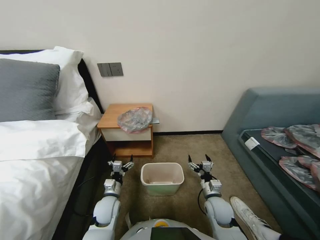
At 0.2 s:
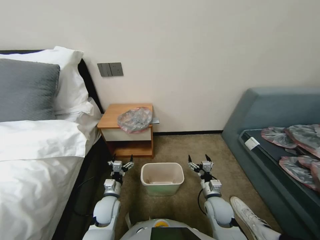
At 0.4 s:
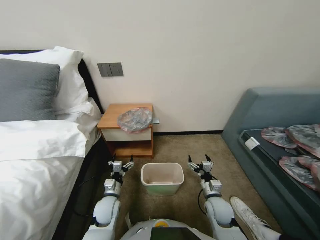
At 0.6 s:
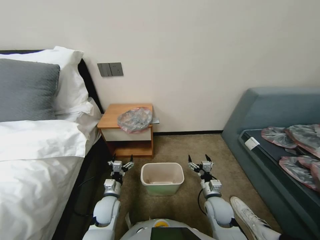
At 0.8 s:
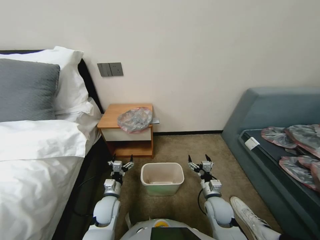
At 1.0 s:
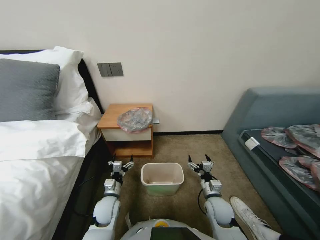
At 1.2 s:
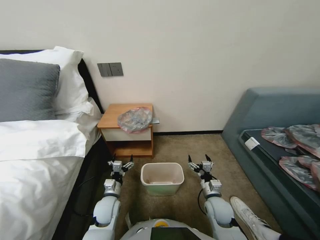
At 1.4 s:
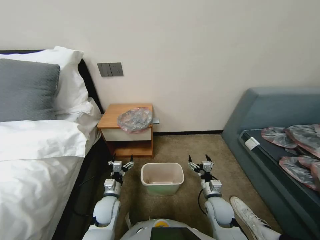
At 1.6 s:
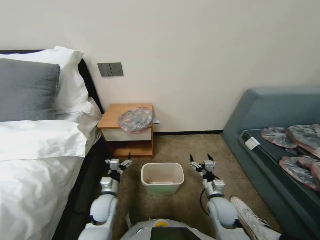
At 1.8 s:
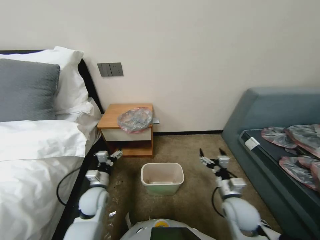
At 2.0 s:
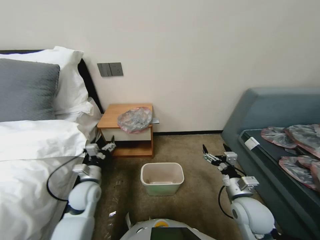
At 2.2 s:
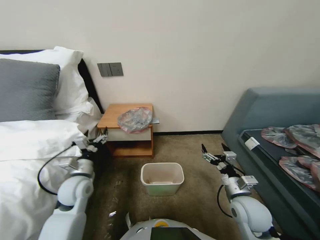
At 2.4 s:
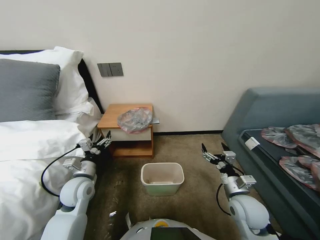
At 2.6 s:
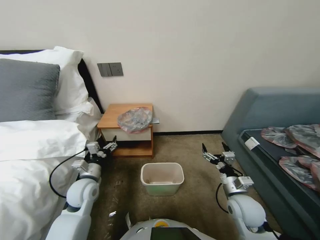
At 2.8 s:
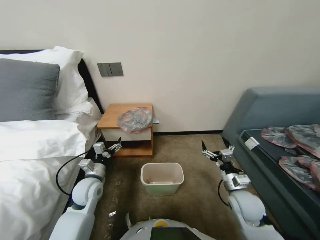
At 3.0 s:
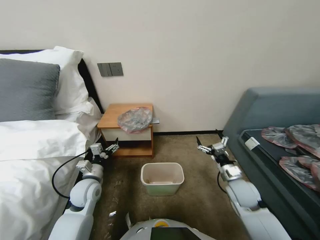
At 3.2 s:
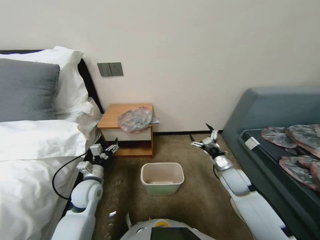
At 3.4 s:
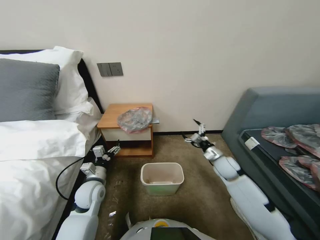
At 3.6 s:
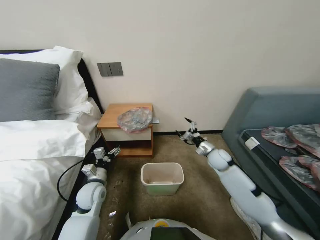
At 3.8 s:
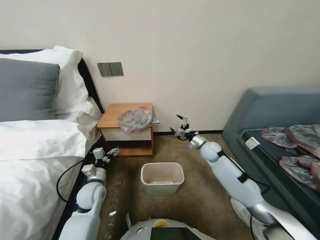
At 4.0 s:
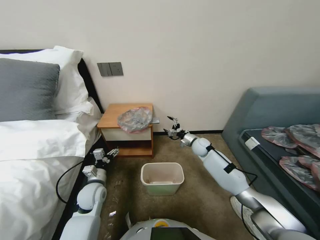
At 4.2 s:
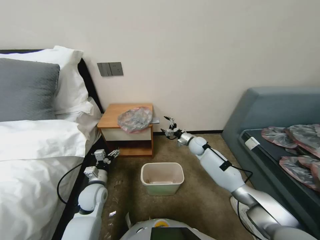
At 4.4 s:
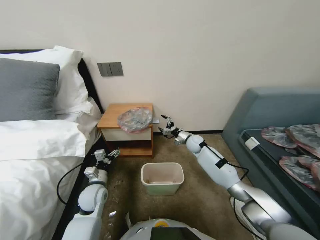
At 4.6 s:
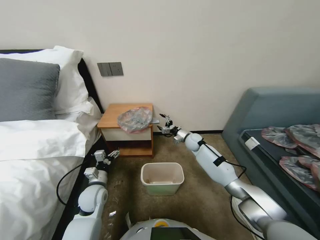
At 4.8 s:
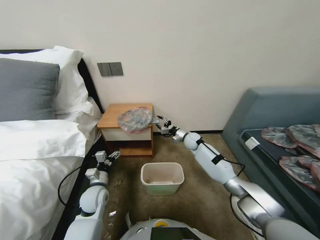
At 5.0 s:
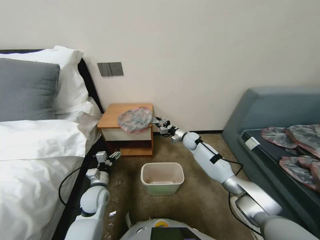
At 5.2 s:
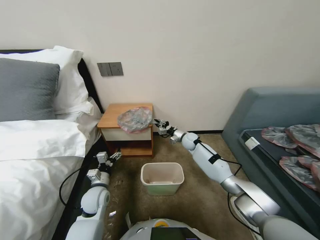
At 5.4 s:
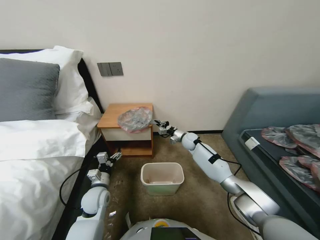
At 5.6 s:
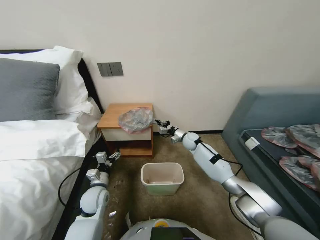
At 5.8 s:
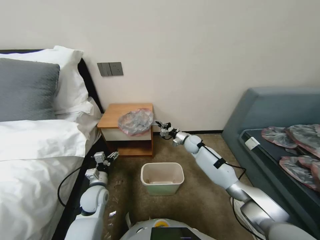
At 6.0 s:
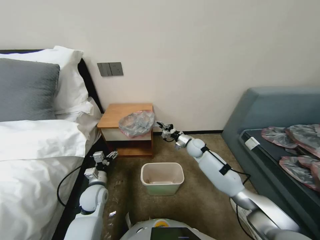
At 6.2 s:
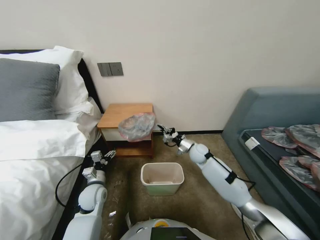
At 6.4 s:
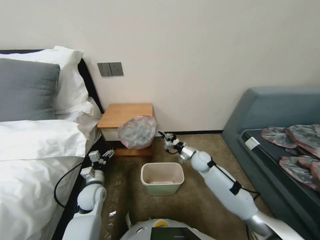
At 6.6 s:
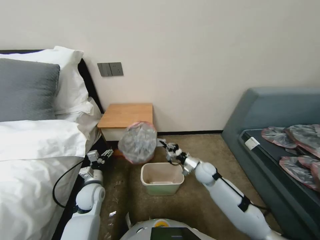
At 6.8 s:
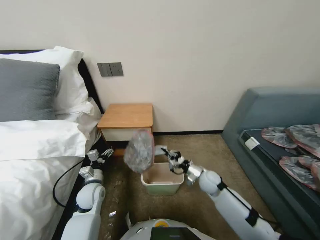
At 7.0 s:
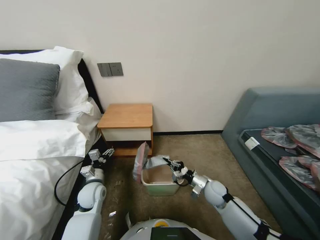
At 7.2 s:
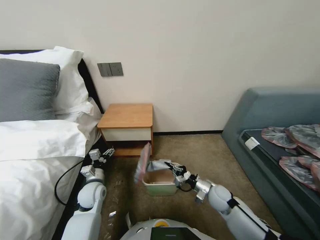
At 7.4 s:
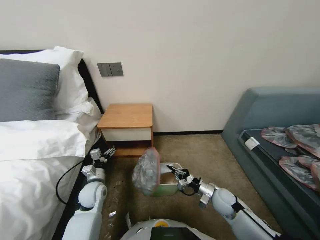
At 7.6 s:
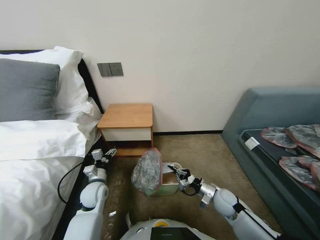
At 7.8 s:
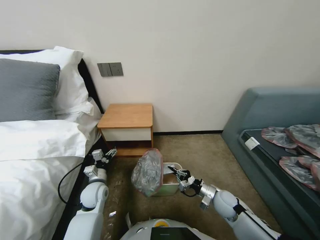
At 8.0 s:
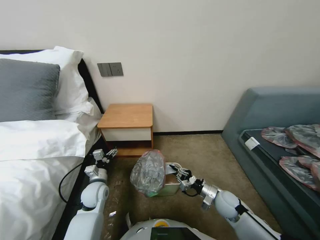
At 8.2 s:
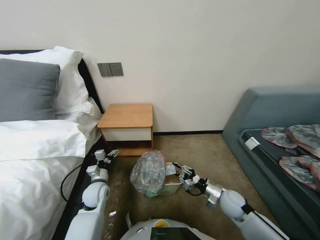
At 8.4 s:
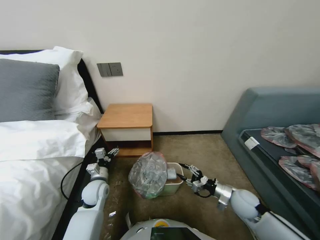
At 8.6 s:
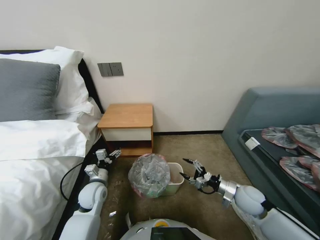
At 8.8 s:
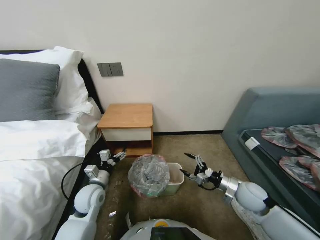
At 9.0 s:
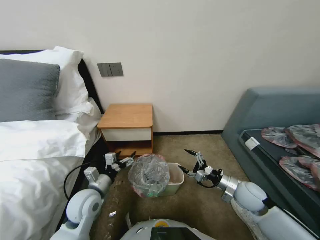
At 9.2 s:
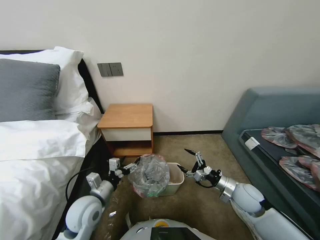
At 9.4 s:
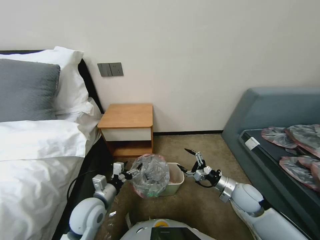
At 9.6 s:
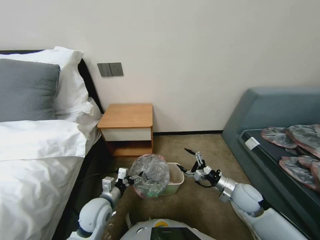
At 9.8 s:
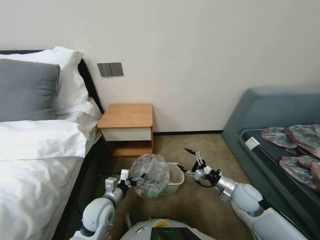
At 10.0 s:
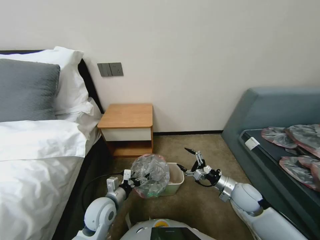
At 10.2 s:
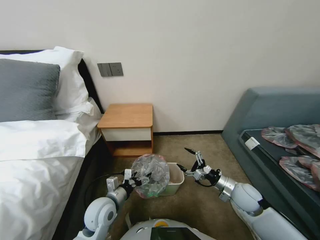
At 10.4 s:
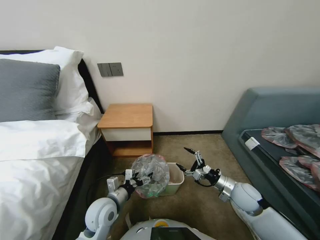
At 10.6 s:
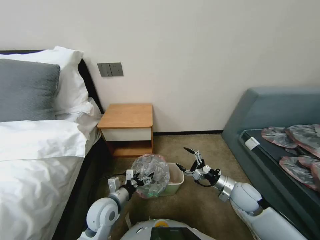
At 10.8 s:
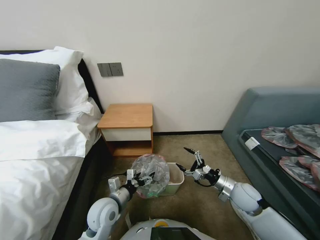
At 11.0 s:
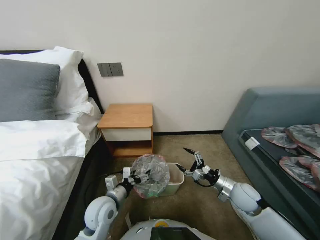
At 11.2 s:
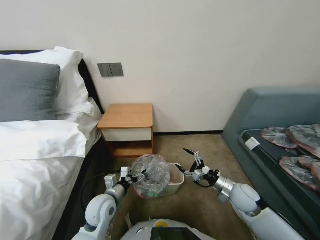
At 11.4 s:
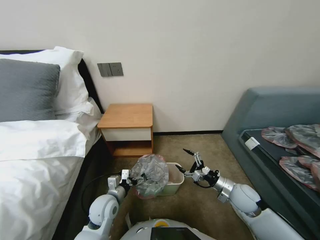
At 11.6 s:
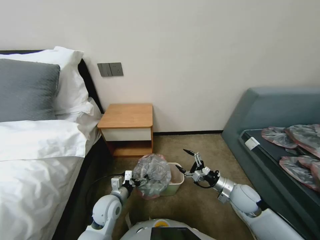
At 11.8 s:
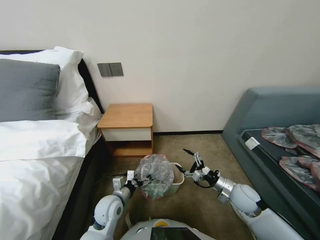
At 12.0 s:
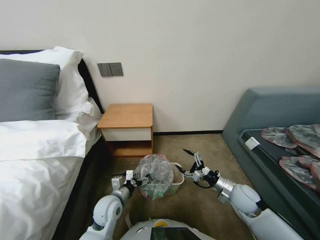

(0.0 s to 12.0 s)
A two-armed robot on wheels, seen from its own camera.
Task of the whole recording: Pick up the garbage bag from the table and place it over the trash can.
1.6 s - 3.0 s: The right gripper is displaced upward and to the right by about 10 cm. Meanwhile the left gripper travels upward and to the left by about 10 cm.
3.0 s - 4.4 s: The right gripper moves forward, some 25 cm.
4.4 s - 6.0 s: The right gripper closes up.
6.0 s - 7.6 s: The right gripper travels backward by some 25 cm.
7.6 s - 9.0 s: The right gripper moves upward and to the right, about 10 cm, and opens up; the left gripper is displaced upward by roughly 5 cm.
9.0 s - 10.4 s: The left gripper travels to the right by approximately 5 cm.
10.4 s - 12.0 s: The grippers stay close to where they were, moving slightly.

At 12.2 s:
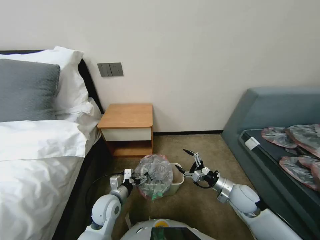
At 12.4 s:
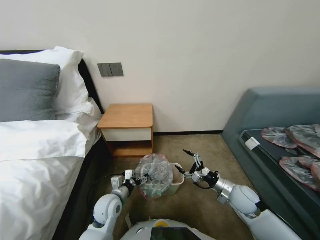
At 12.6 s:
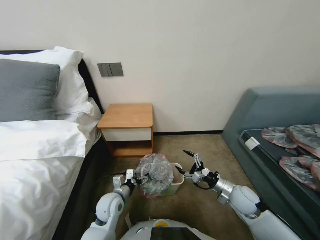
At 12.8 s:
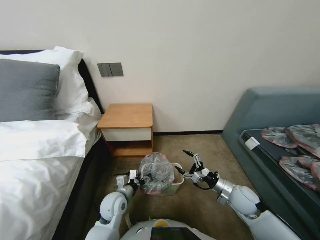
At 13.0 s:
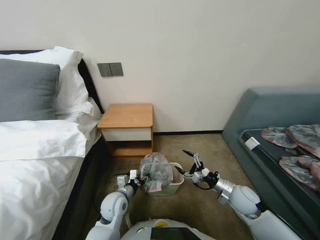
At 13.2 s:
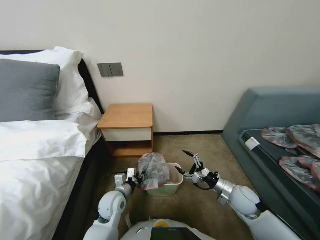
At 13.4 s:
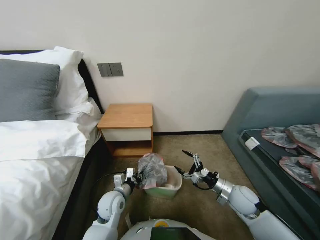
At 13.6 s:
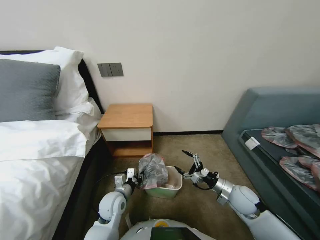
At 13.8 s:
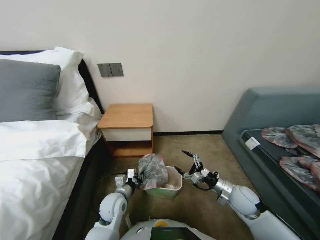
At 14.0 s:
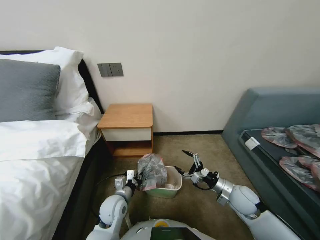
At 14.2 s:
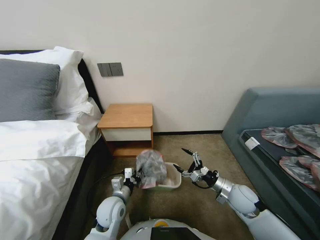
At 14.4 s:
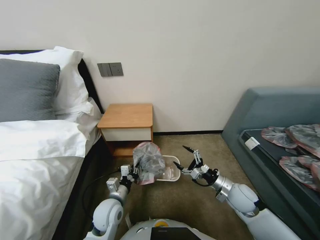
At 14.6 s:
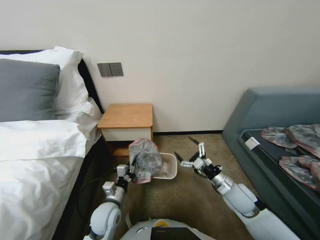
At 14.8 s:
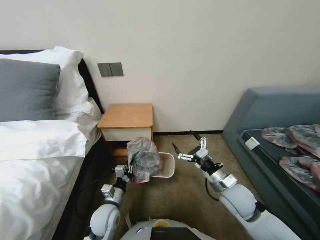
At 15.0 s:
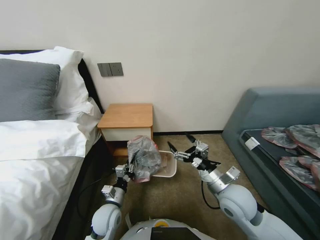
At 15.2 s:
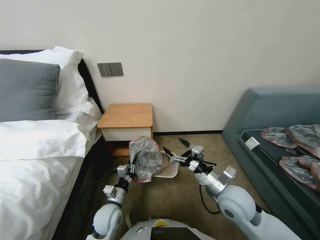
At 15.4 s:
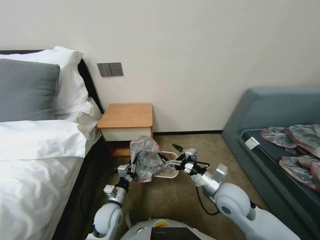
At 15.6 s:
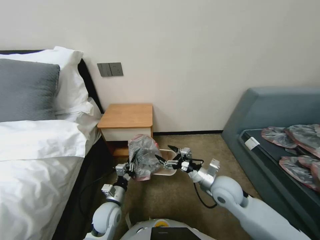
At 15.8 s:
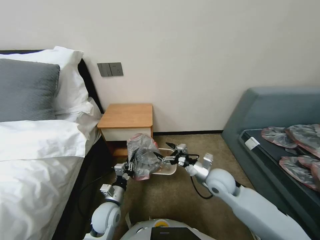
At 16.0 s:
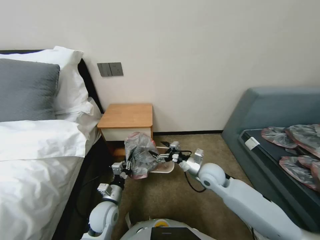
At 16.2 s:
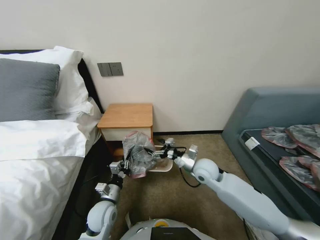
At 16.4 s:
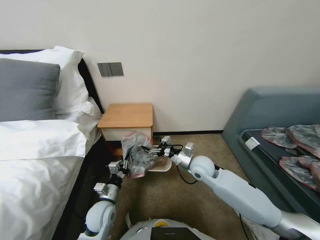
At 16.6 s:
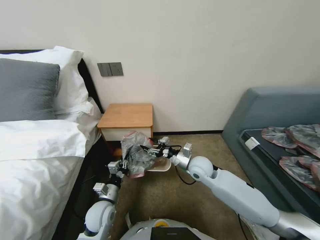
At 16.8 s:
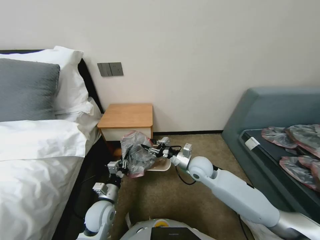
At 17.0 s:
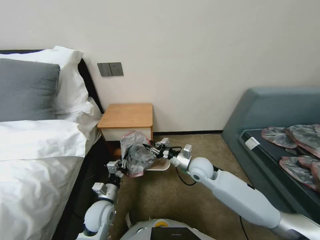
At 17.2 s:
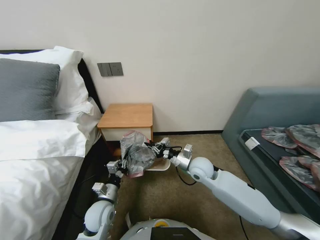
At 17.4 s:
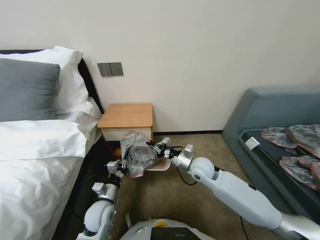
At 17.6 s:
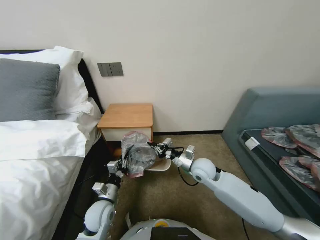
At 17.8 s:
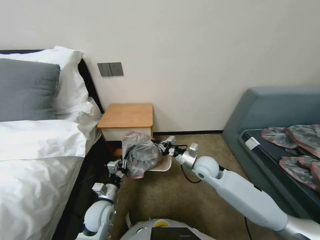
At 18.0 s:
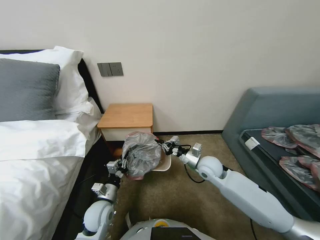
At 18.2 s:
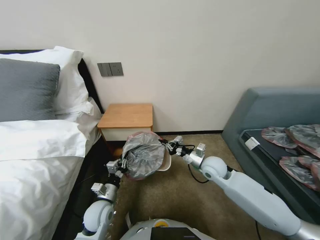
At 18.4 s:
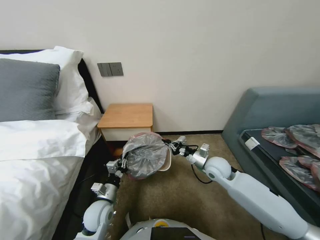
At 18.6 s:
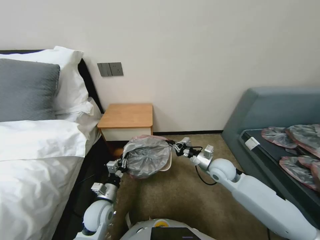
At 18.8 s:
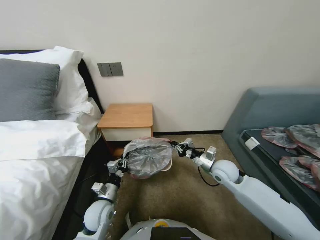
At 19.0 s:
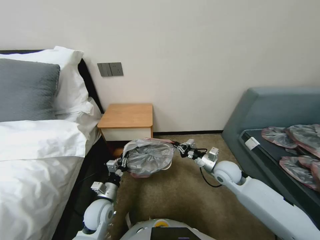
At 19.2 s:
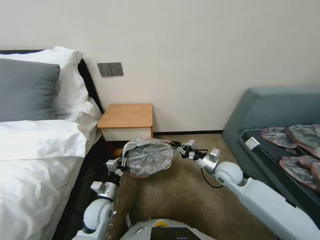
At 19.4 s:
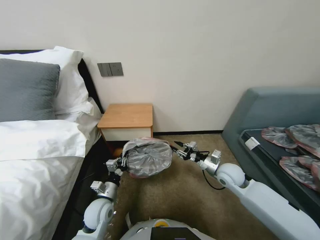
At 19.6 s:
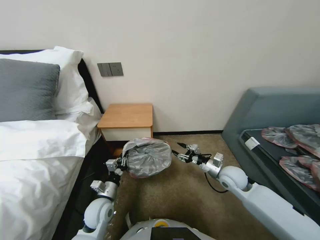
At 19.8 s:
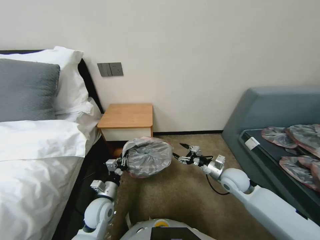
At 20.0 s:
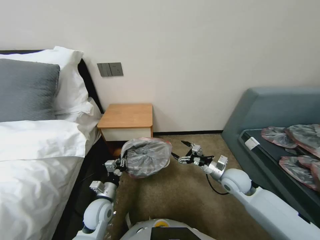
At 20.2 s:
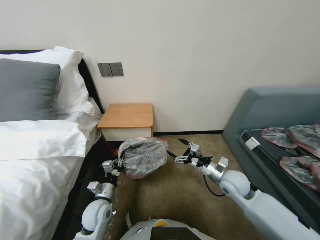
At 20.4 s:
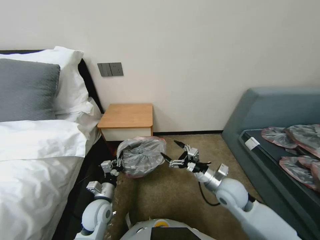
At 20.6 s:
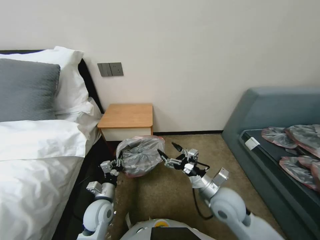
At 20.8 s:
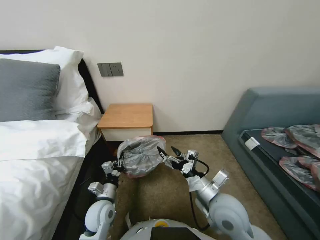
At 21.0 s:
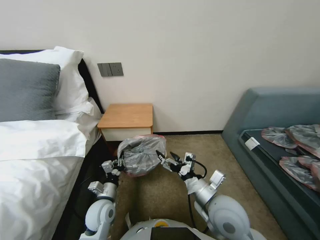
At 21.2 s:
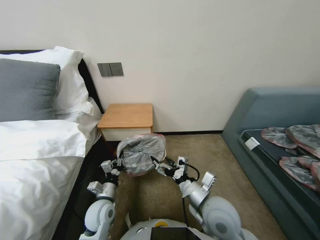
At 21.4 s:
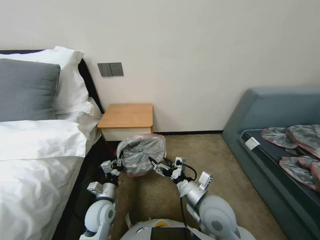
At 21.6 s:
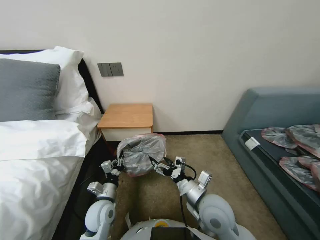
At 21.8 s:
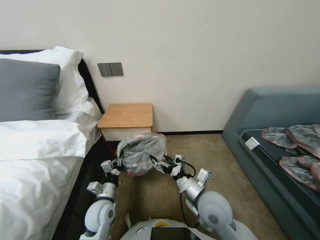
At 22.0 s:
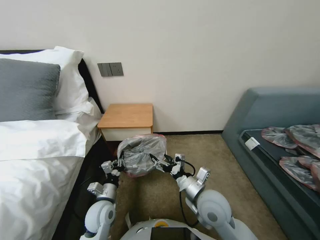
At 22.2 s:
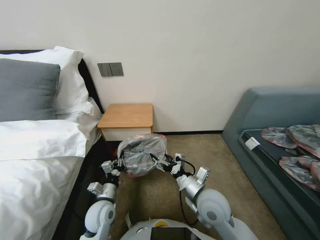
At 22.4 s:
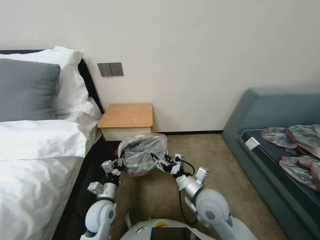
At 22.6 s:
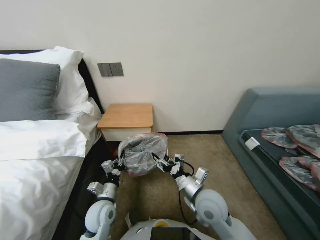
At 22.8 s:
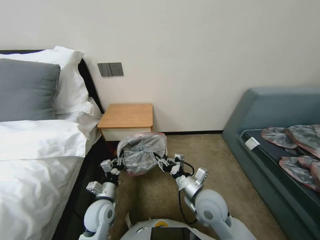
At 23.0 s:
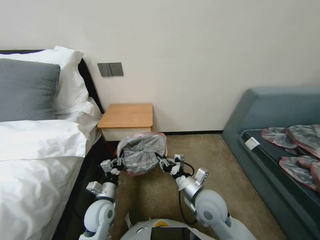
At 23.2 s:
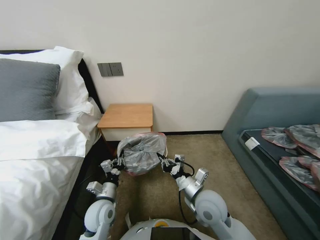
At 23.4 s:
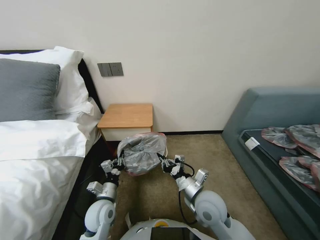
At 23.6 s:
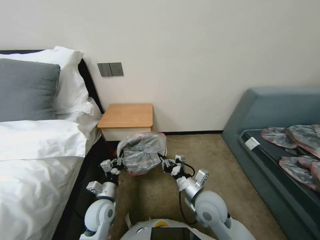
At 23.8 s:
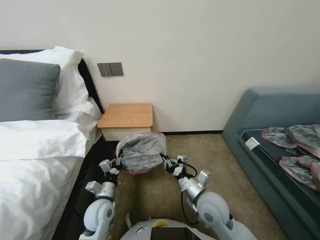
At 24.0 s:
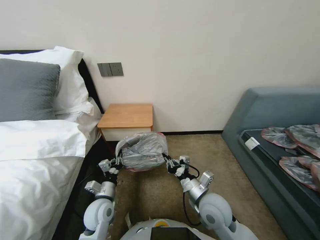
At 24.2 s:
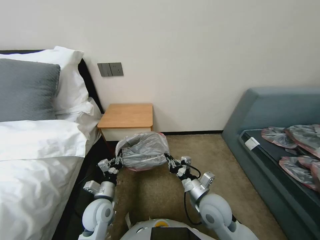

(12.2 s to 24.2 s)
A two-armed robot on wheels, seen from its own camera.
Task of the whole recording: Pick up the garbage bag from the table and place it over the trash can.
12.2 s - 13.8 s: The left gripper closes up.
13.8 s - 15.2 s: The right gripper shifts about 15 cm upward and to the left.
15.2 s - 16.6 s: The right gripper is displaced forward and to the left by about 15 cm.
16.6 s - 18.2 s: The right gripper closes its fingers.
18.2 s - 19.8 s: The right gripper heads to the right, covering some 10 cm, and opens up.
19.8 s - 21.2 s: The right gripper shifts some 20 cm backward, to the left and upward.
21.2 s - 22.6 s: The grippers stay close to where they were, moving slightly.
22.6 s - 24.2 s: The right gripper closes its fingers.
